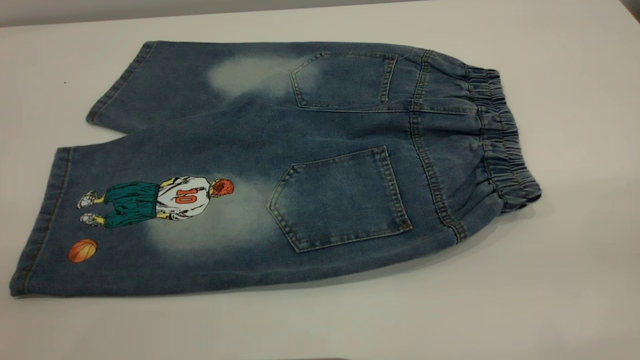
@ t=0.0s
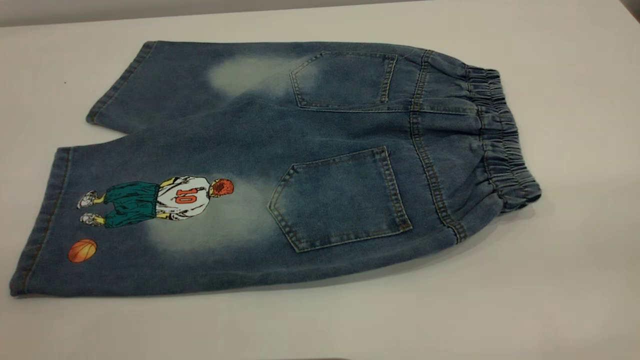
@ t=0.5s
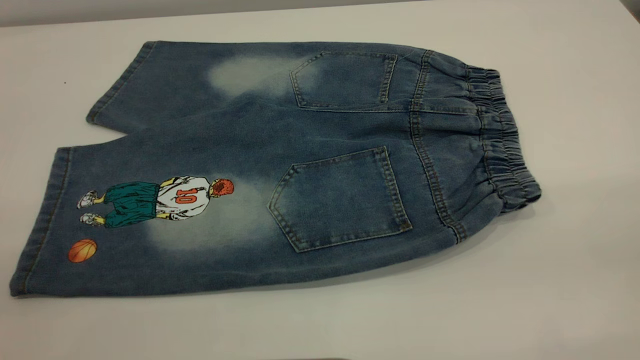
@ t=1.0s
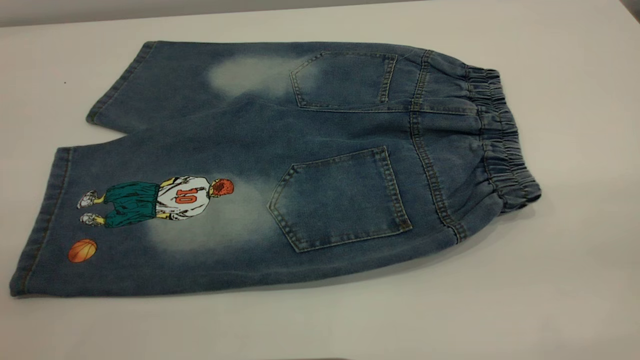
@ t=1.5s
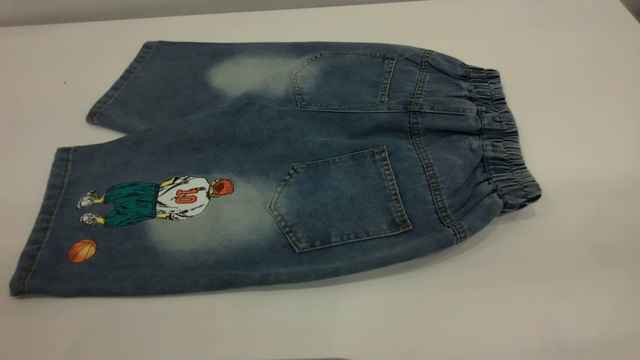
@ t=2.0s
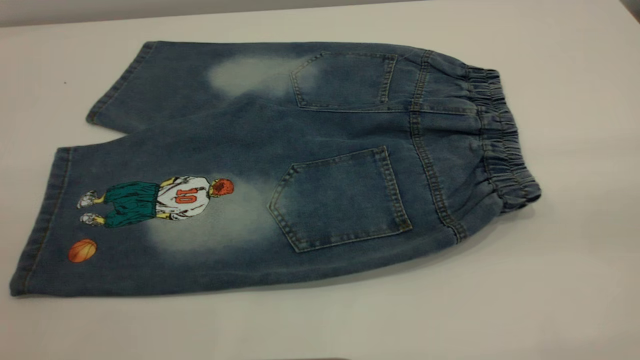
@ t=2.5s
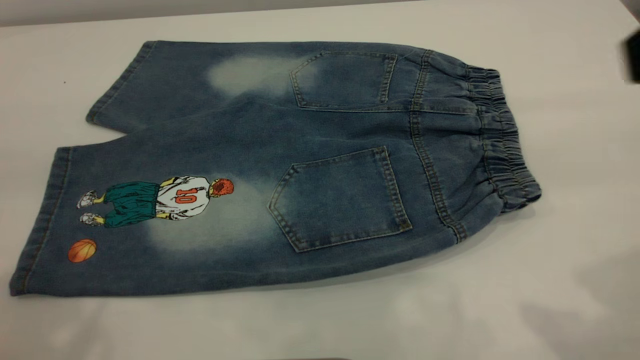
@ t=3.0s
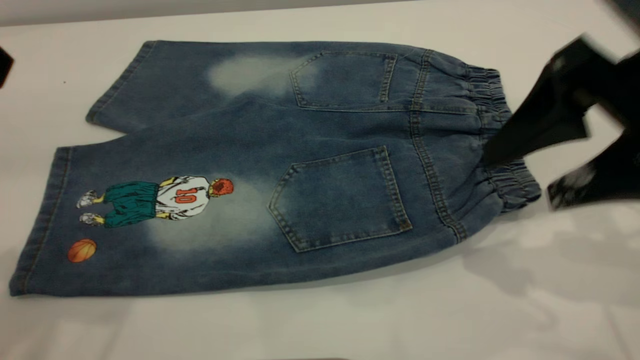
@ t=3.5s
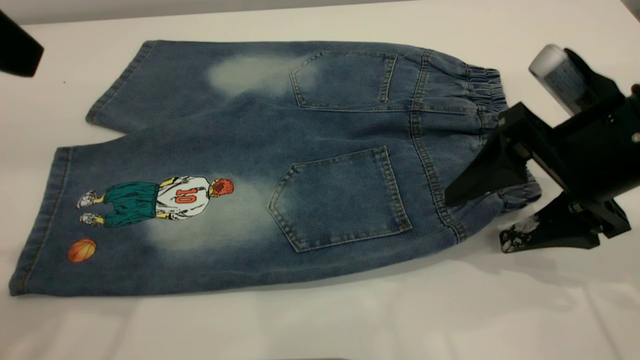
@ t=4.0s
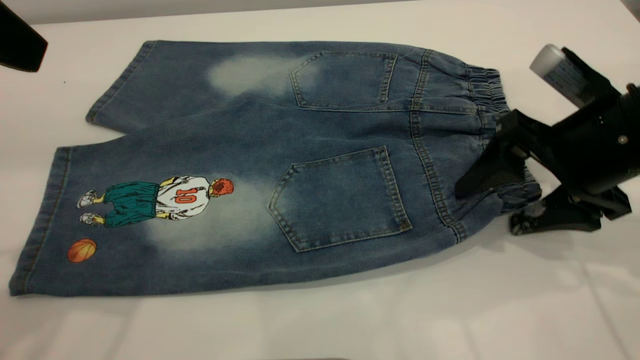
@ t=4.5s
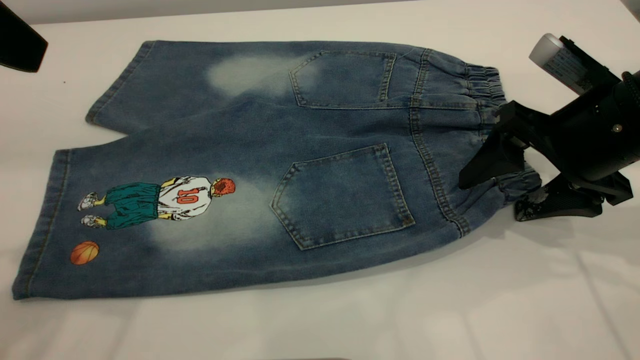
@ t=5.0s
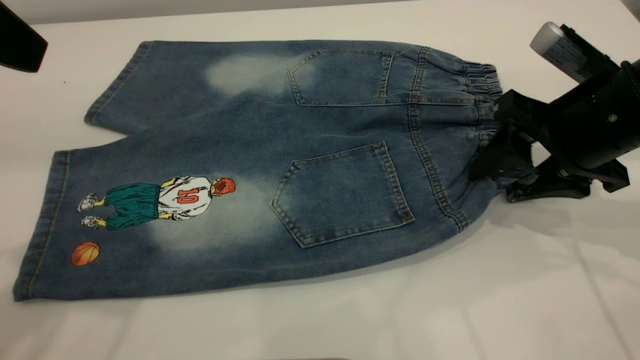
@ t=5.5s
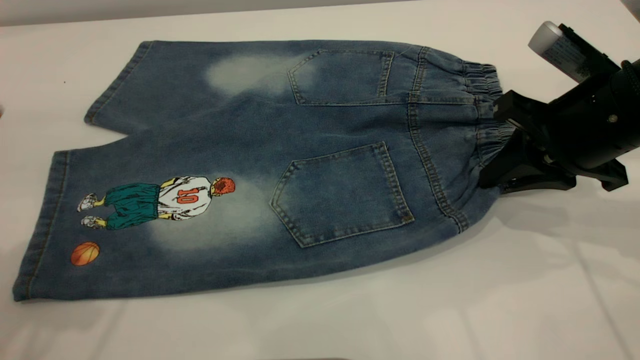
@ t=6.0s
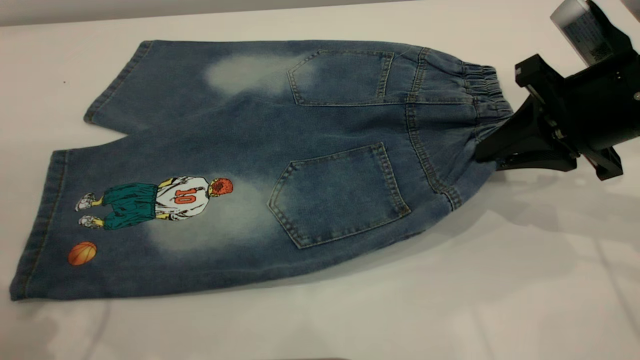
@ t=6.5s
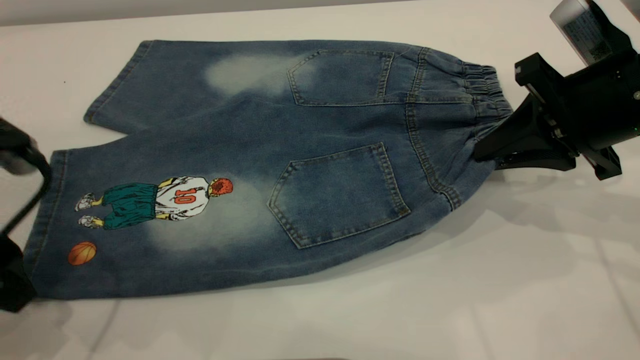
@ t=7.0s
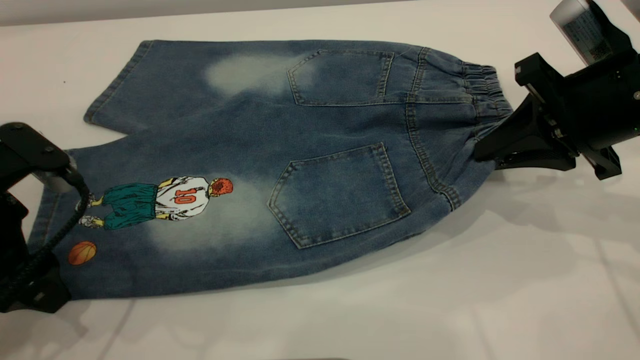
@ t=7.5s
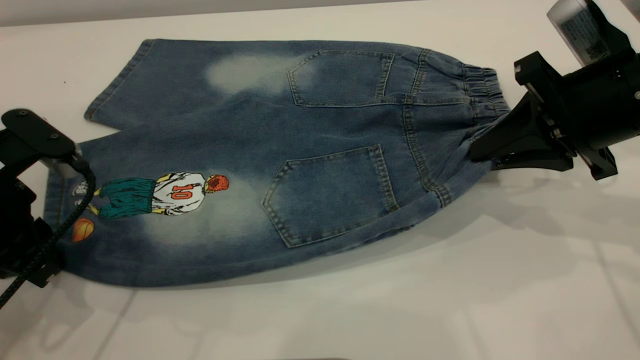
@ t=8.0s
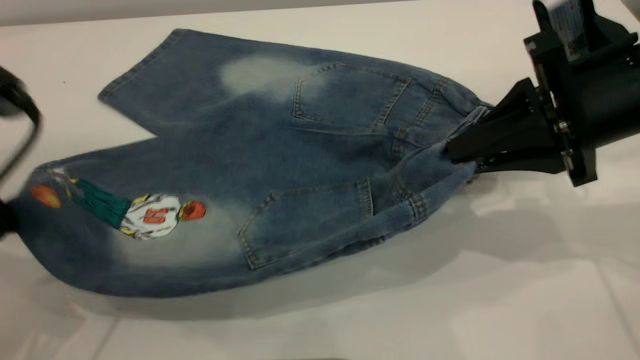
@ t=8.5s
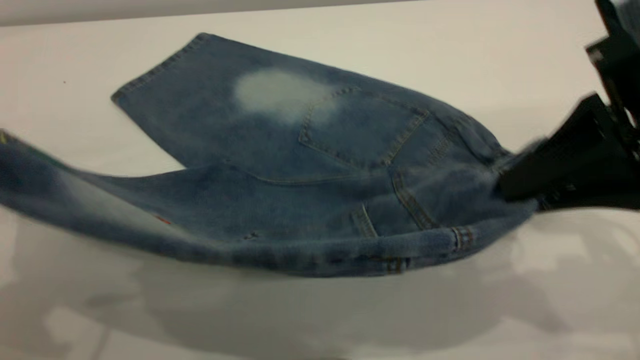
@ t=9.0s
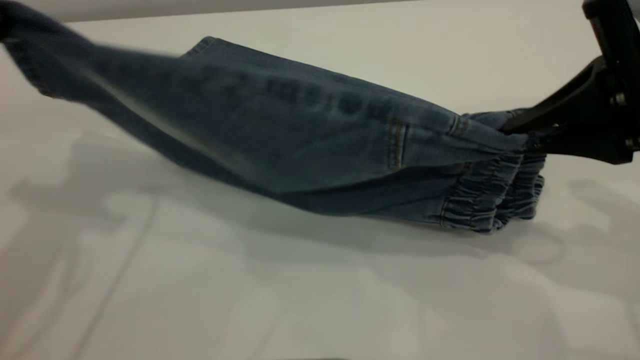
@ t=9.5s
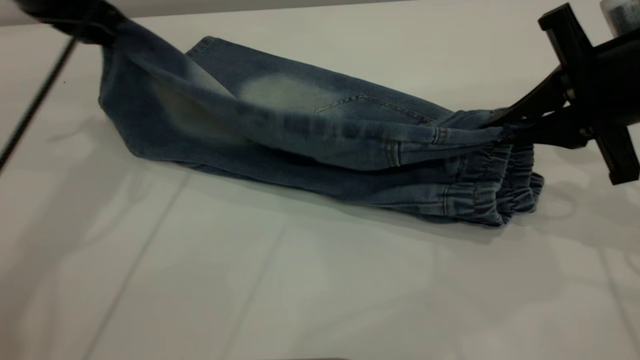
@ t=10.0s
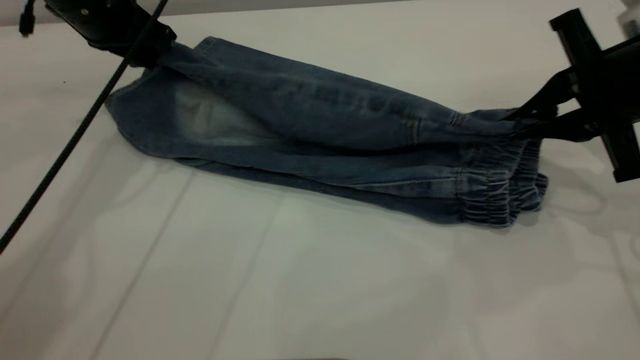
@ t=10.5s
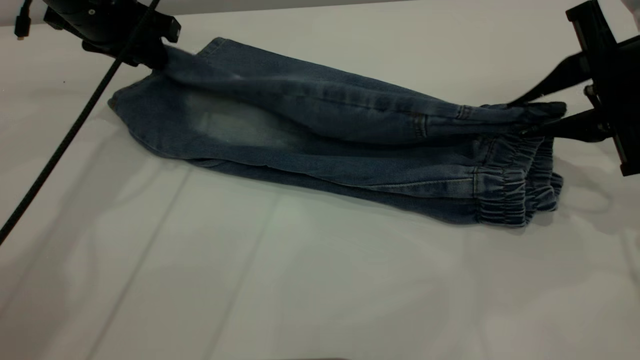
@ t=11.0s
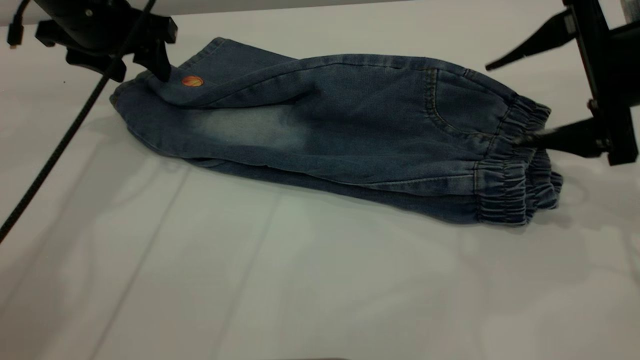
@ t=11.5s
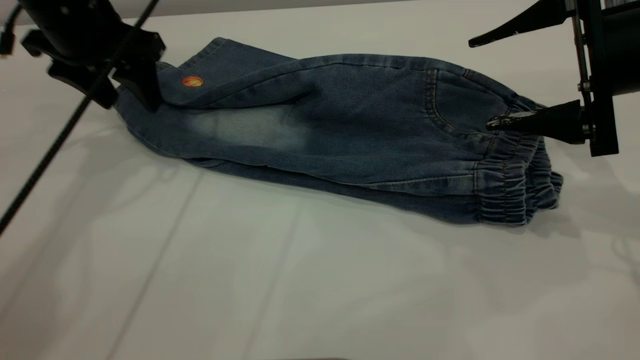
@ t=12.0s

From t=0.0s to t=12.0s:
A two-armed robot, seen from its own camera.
Step, from t=0.0s to t=11.5s: Fold the bottom of the pants upward.
From t=0.0s to t=2.0s: Both grippers stay about where they are.
From t=2.0s to t=4.0s: The right gripper shifts roughly 35 cm forward and downward, while the left gripper heads forward, covering roughly 25 cm.
From t=4.0s to t=6.0s: The right gripper closes its fingers.
From t=6.0s to t=8.0s: The left gripper is displaced downward by roughly 15 cm, and closes its fingers.
From t=8.0s to t=10.0s: The left gripper moves forward and upward, roughly 20 cm, while the right gripper reaches roughly 10 cm backward, then returns.
From t=10.0s to t=12.0s: The right gripper opens up, while the left gripper opens its fingers.

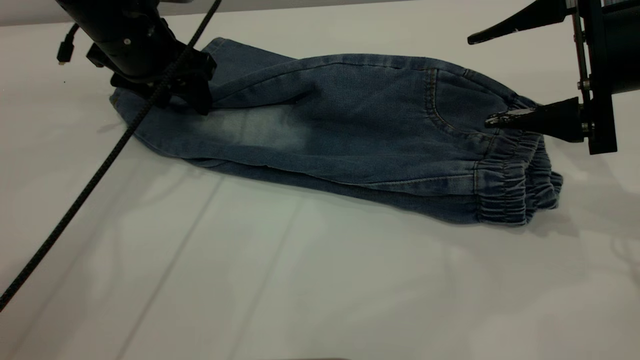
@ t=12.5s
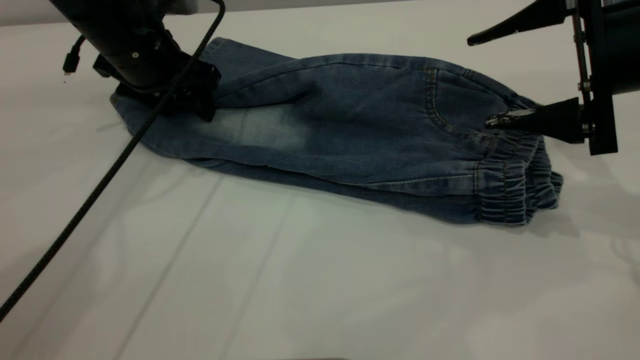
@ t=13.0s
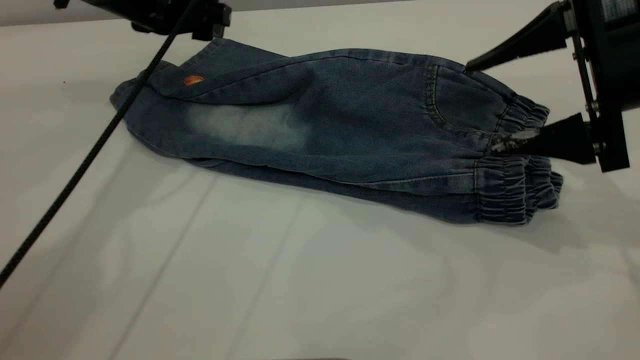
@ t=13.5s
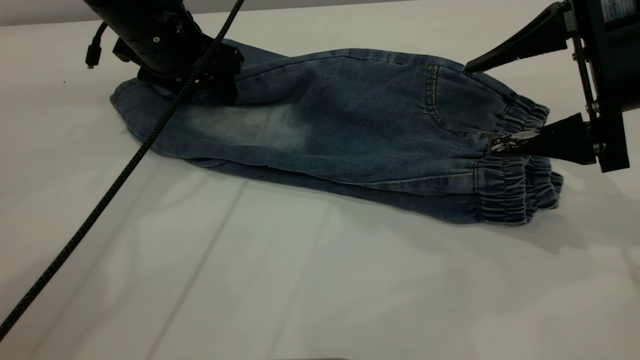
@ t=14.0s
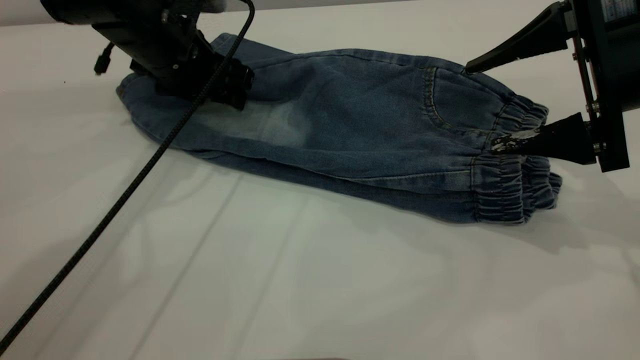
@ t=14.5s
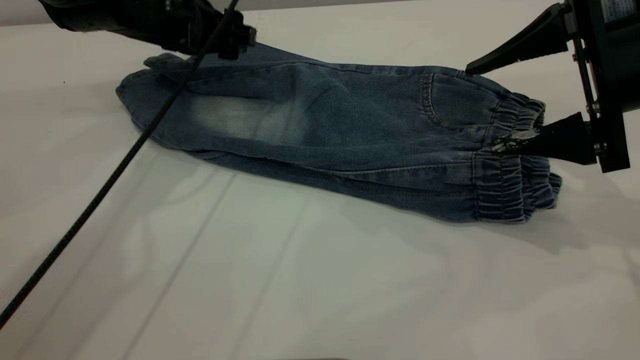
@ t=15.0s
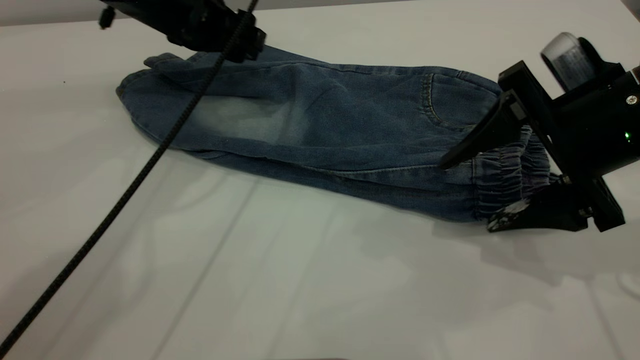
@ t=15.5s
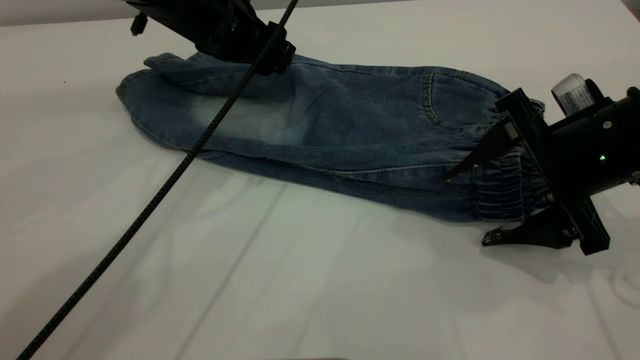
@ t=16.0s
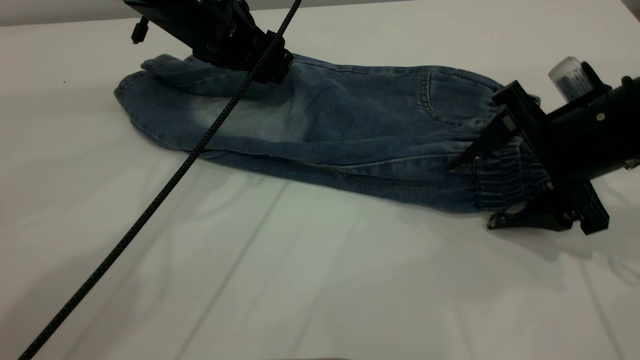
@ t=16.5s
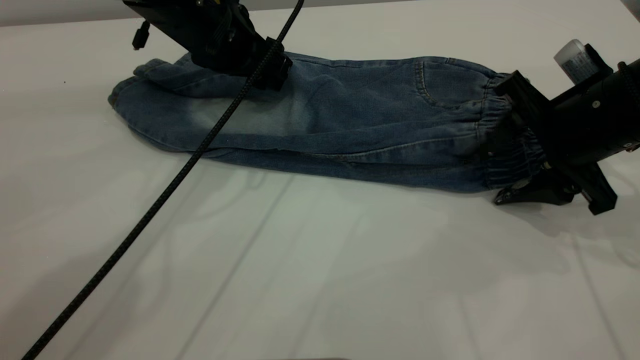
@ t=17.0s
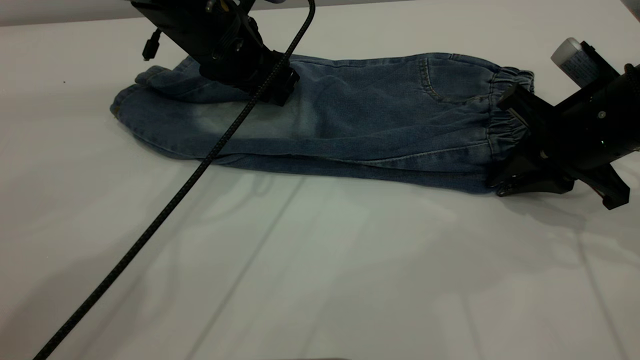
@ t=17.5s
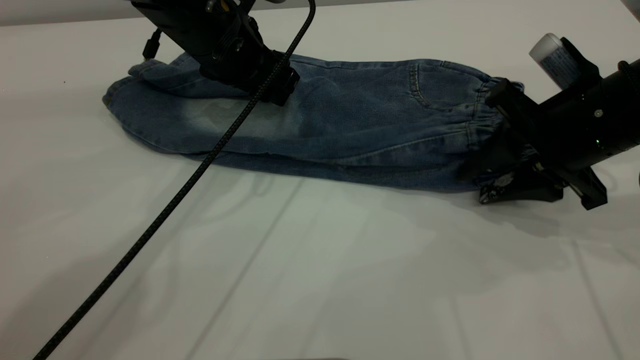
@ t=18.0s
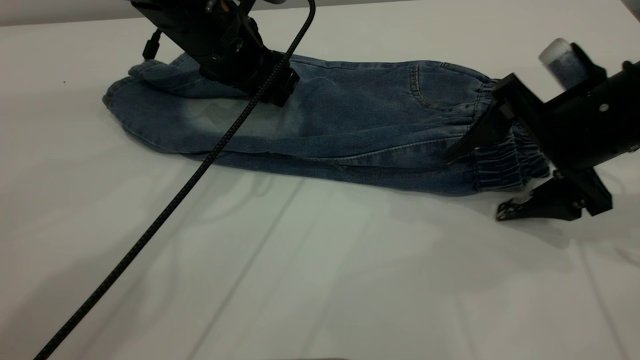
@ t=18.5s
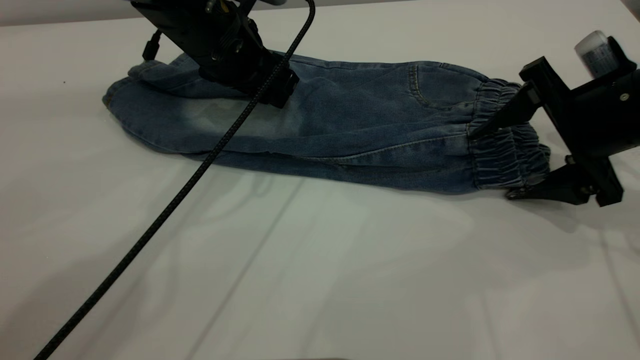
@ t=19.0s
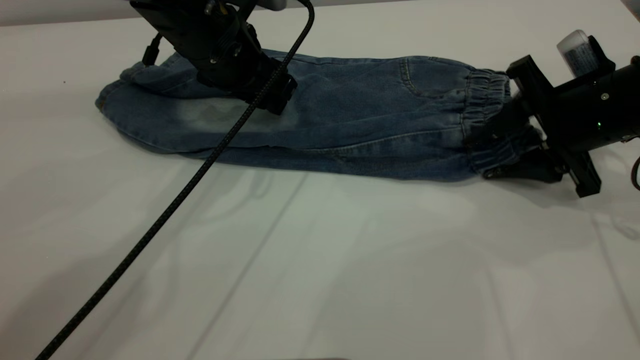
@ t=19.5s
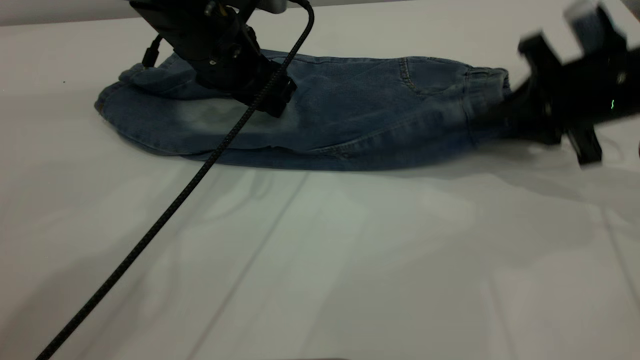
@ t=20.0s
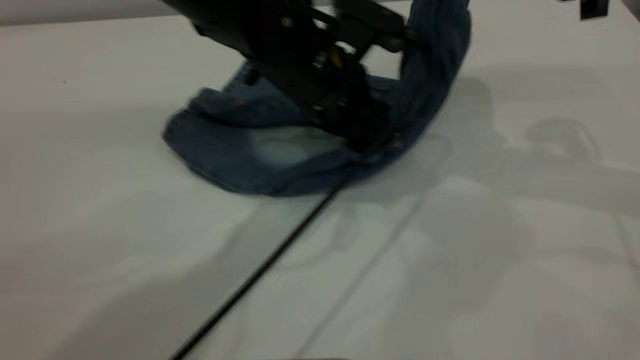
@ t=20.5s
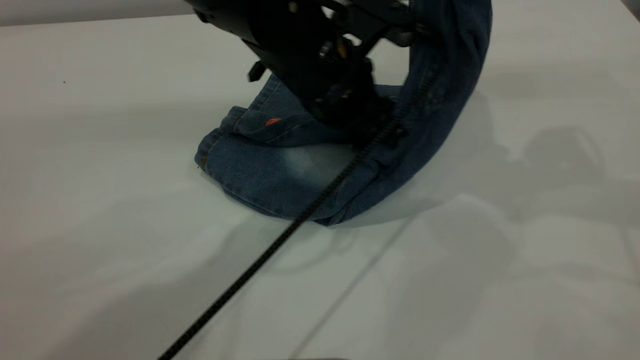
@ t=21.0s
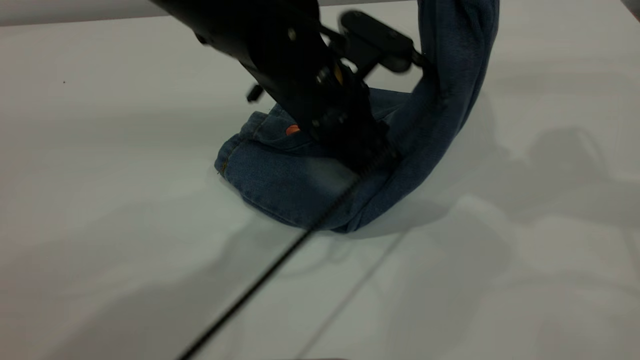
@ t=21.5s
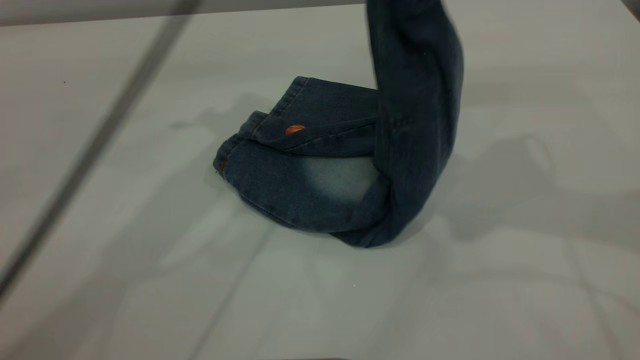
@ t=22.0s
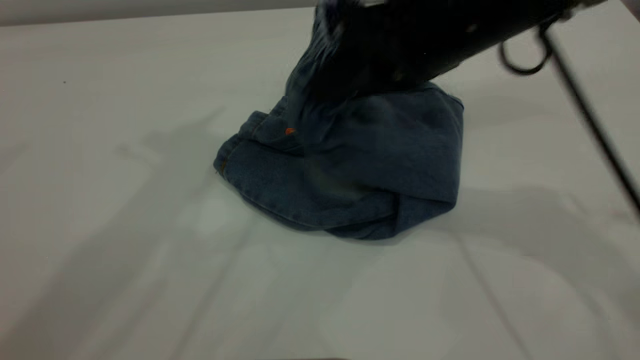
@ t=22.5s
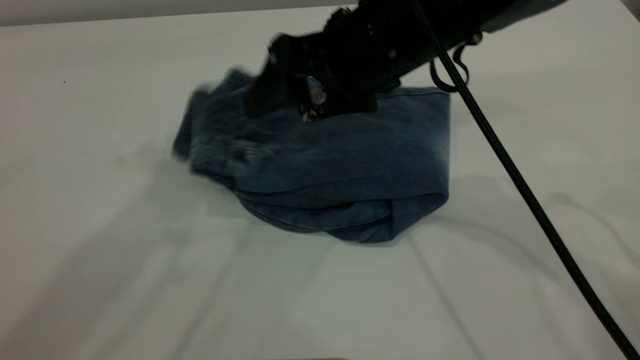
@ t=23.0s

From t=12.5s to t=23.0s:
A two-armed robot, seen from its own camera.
Step, from t=12.5s to t=23.0s: Fold your pants from right to left.
From t=14.5s to t=16.5s: The right gripper shifts approximately 5 cm downward, while the left gripper ends up approximately 5 cm from where it was.
From t=16.5s to t=19.0s: The right gripper closes, then opens again.
From t=19.0s to t=21.0s: The left gripper shifts about 10 cm to the right and backward. Meanwhile the right gripper moves upward, roughly 20 cm, and closes its fingers.
From t=21.0s to t=23.0s: The left gripper moves upward and to the left, about 30 cm. Meanwhile the right gripper shifts some 20 cm to the left and downward, and opens.
